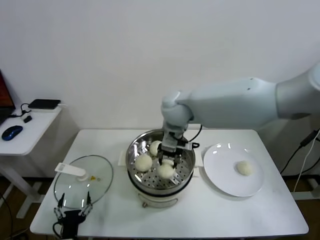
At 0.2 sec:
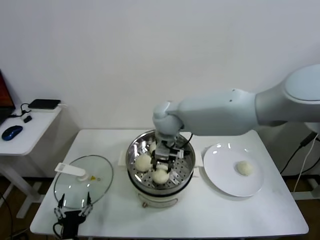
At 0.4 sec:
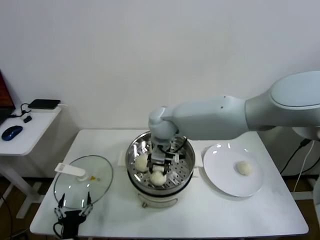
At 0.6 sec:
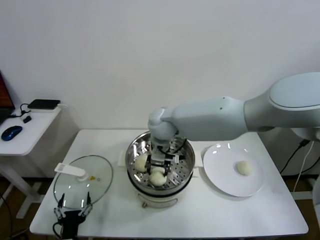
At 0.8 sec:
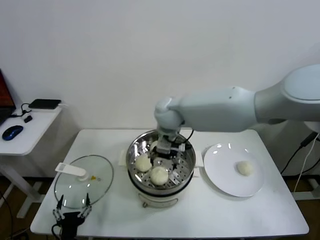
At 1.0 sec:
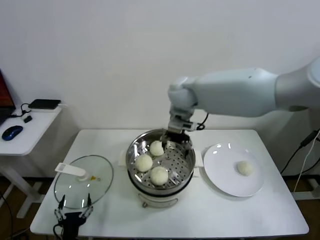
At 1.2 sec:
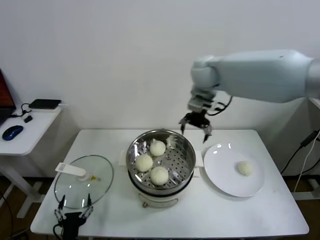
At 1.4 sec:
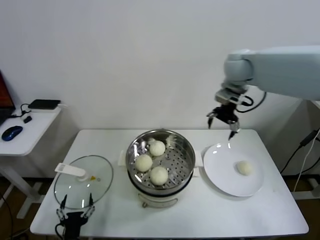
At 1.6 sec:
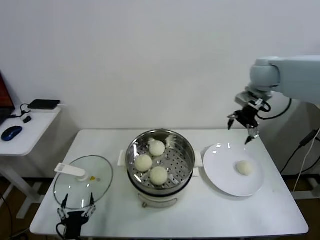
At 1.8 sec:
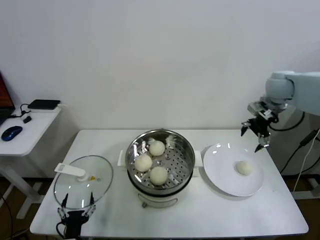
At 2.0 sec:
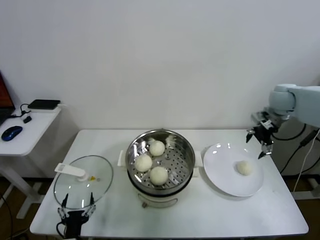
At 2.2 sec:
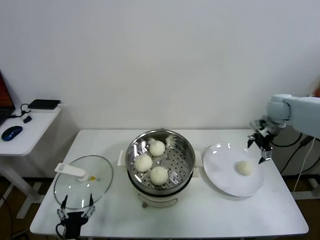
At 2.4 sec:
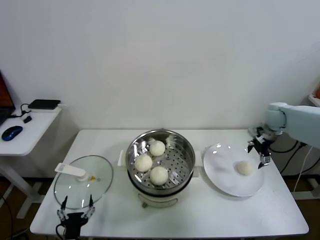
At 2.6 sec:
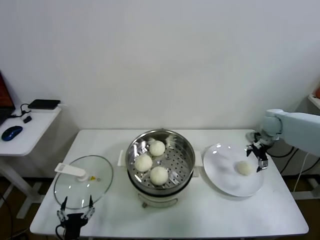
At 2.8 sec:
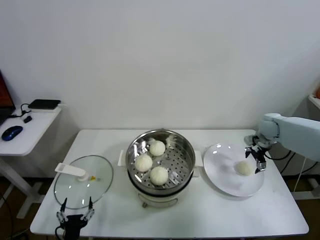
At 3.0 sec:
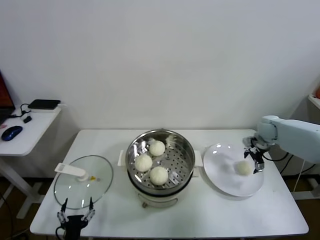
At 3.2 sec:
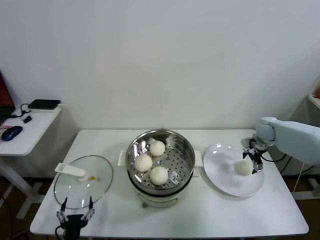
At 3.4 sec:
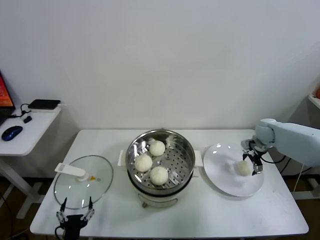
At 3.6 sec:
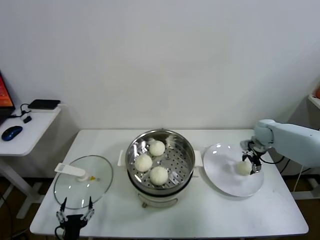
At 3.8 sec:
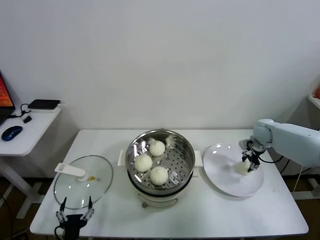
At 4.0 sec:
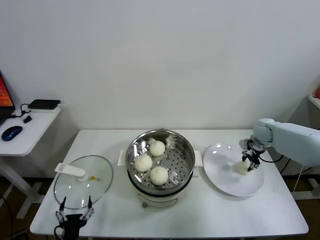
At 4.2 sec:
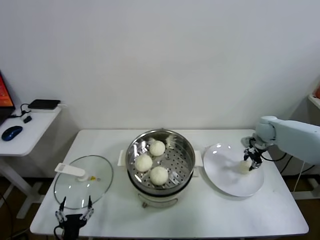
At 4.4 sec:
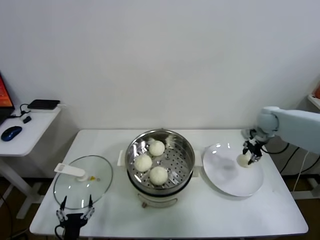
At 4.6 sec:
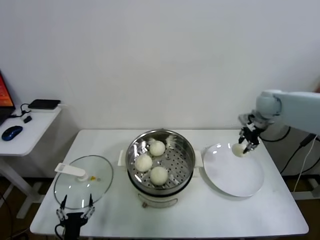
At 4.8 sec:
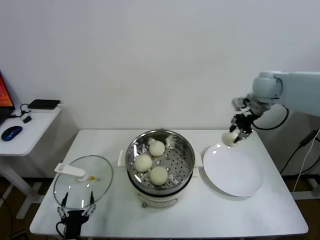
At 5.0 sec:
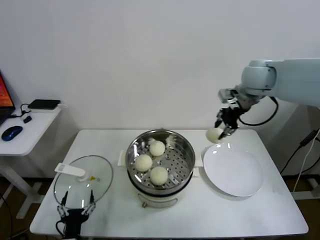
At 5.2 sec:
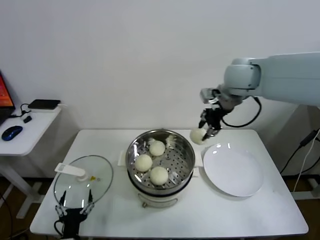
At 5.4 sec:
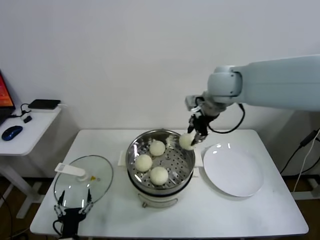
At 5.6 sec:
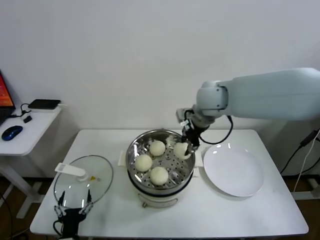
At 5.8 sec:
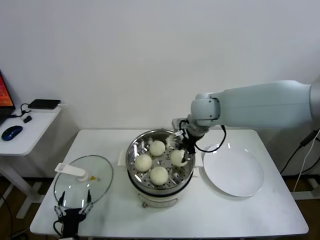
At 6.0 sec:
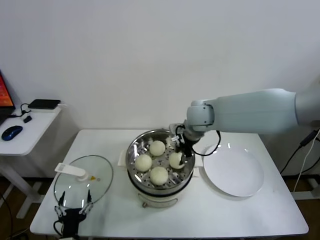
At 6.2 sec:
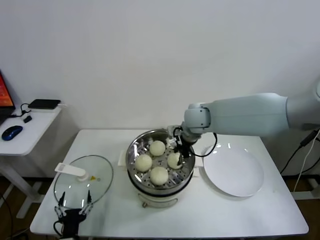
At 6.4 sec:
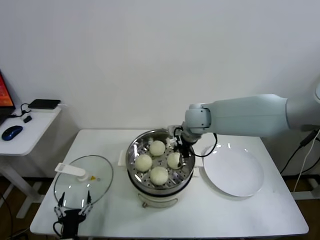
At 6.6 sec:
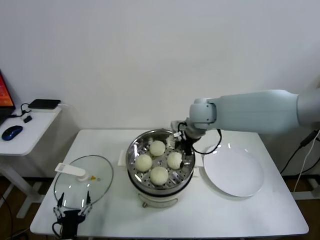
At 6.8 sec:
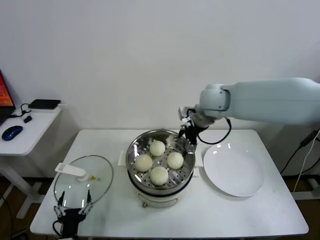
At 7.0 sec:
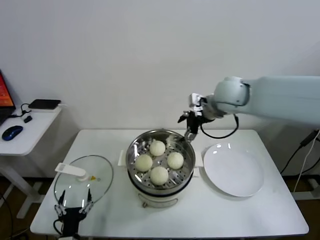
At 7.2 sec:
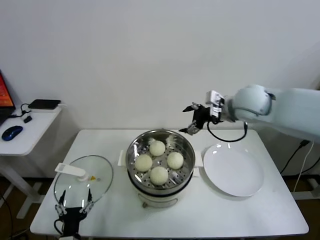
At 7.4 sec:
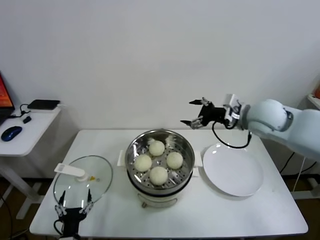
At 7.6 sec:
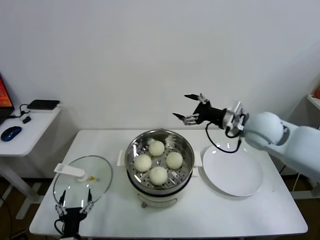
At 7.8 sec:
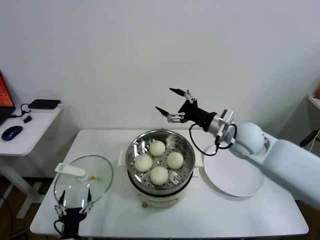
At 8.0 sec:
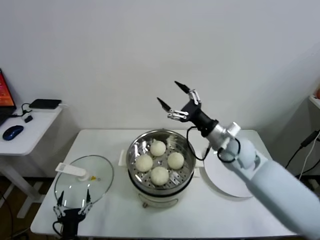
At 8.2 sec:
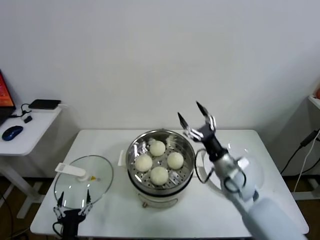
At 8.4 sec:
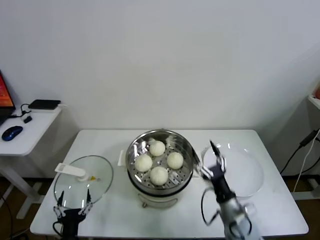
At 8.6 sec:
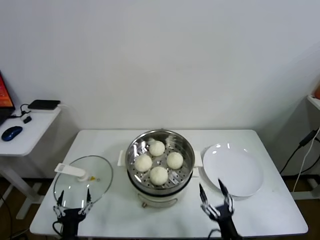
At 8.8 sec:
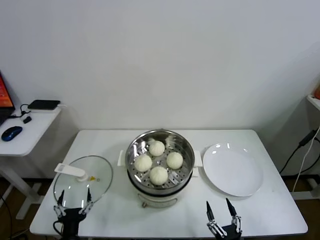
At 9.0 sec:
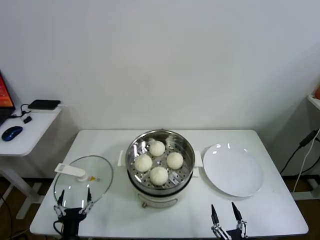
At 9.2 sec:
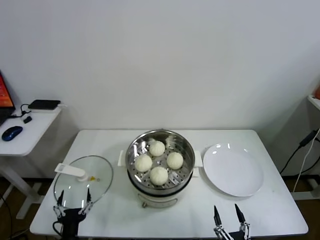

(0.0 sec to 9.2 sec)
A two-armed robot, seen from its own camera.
Task of the whole recording: take steamed baozi put them in steamer.
Step, 0.8 sec - 3.8 sec: Grasp the baozi in the plate with right gripper.
Step, 4.0 sec - 6.4 sec: Place the baozi on the steamer with right gripper.
0.0 sec - 1.6 sec: The right gripper shifts roughly 25 cm to the right, and opens its fingers.
1.6 sec - 3.0 sec: The right gripper shifts roughly 25 cm downward and to the right.
3.0 sec - 4.6 sec: The right gripper shifts approximately 10 cm upward, and closes up.
4.6 sec - 6.2 sec: The right gripper travels to the left by some 25 cm.
6.2 sec - 7.6 sec: The right gripper travels to the right and backward by some 20 cm, and opens up.
7.6 sec - 9.2 sec: The right gripper travels backward and downward by roughly 50 cm.
